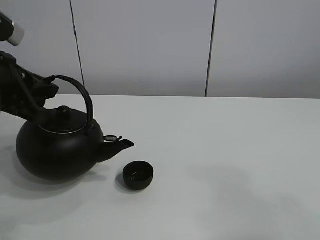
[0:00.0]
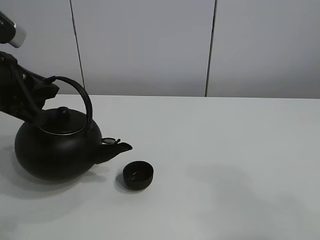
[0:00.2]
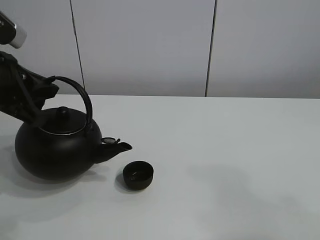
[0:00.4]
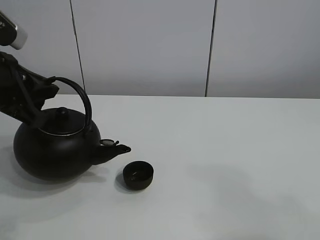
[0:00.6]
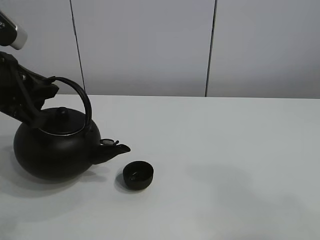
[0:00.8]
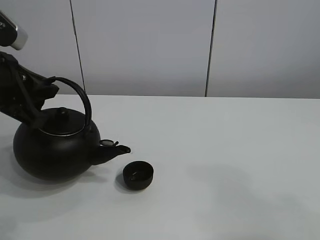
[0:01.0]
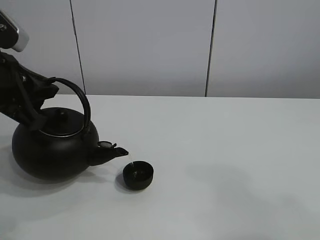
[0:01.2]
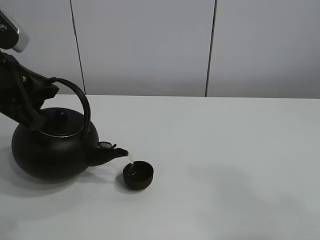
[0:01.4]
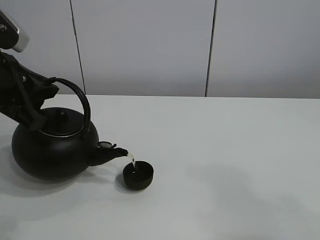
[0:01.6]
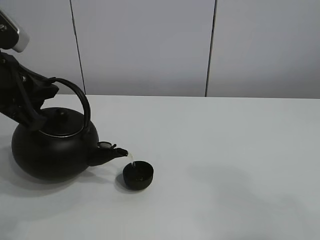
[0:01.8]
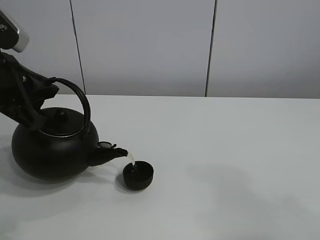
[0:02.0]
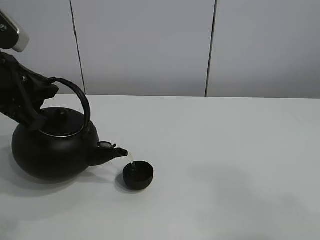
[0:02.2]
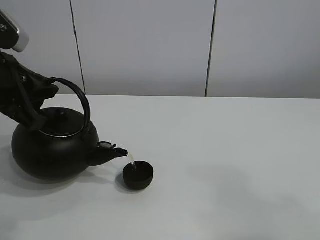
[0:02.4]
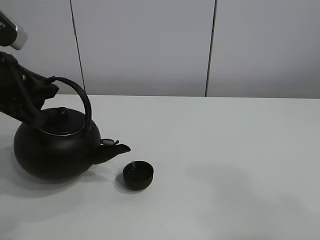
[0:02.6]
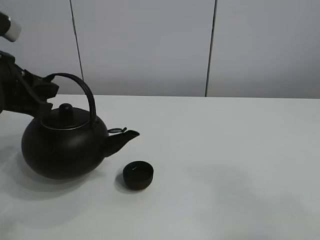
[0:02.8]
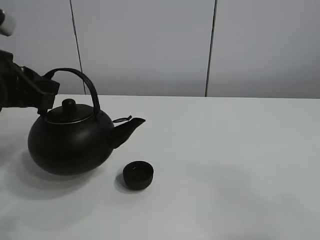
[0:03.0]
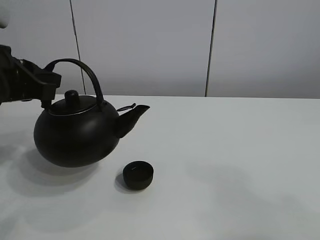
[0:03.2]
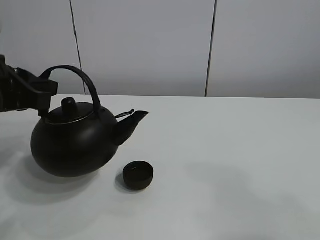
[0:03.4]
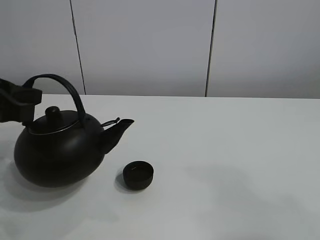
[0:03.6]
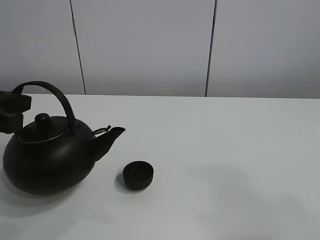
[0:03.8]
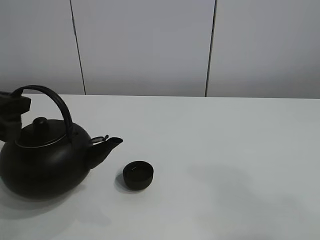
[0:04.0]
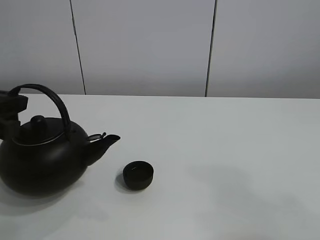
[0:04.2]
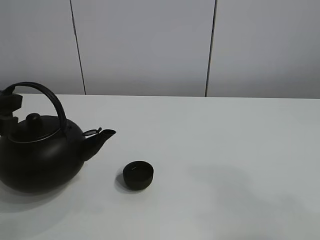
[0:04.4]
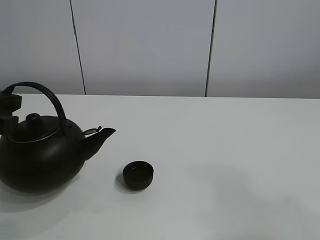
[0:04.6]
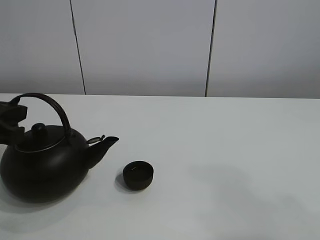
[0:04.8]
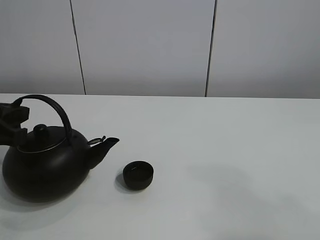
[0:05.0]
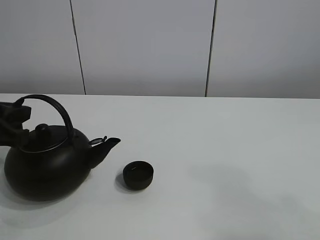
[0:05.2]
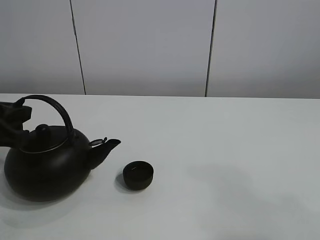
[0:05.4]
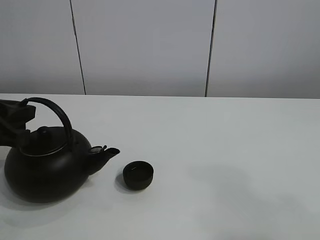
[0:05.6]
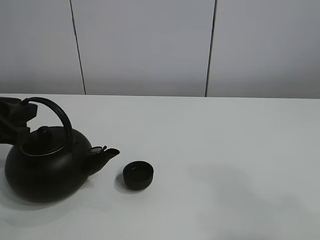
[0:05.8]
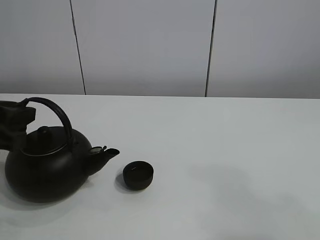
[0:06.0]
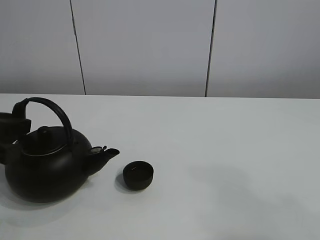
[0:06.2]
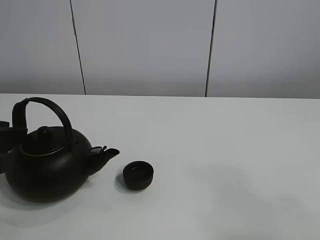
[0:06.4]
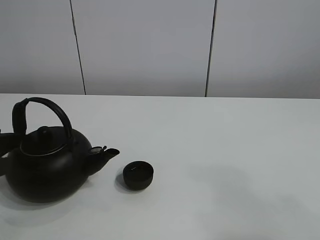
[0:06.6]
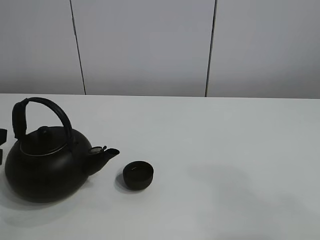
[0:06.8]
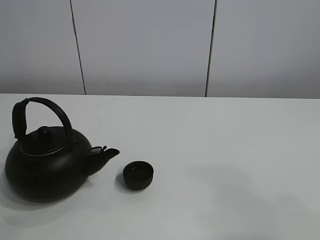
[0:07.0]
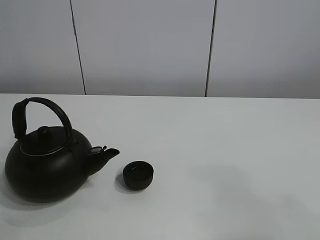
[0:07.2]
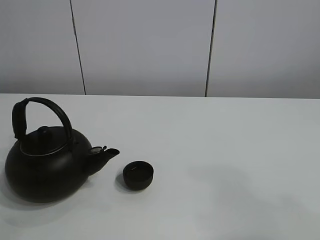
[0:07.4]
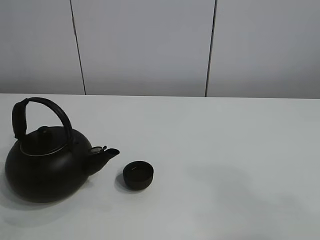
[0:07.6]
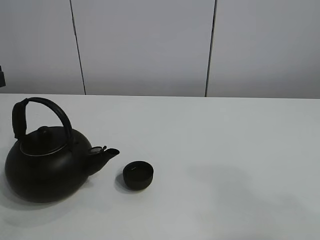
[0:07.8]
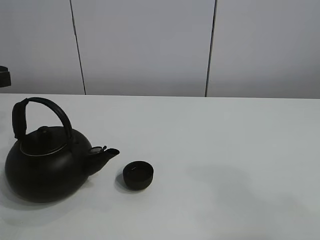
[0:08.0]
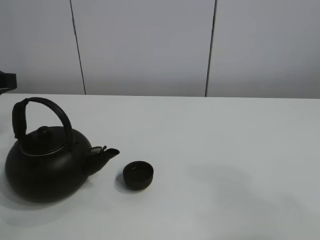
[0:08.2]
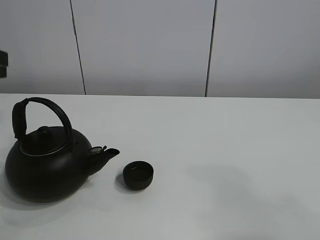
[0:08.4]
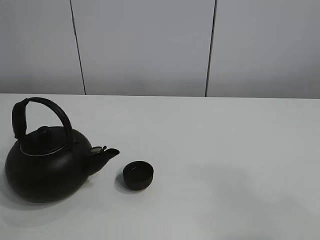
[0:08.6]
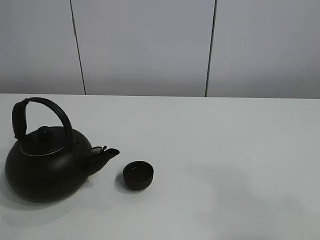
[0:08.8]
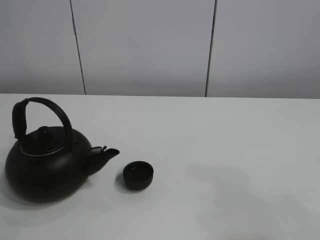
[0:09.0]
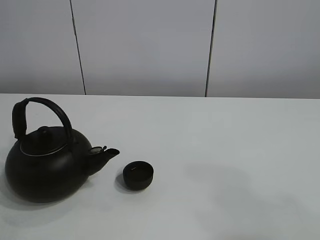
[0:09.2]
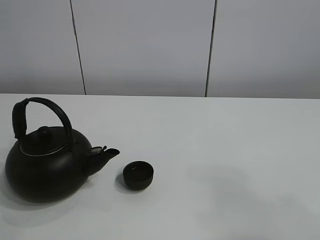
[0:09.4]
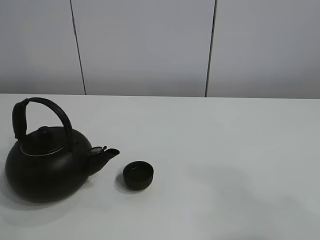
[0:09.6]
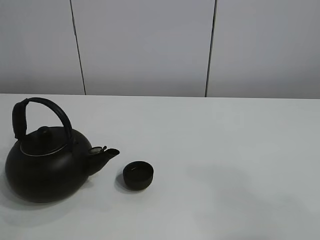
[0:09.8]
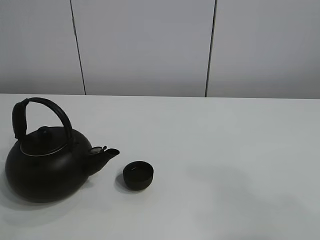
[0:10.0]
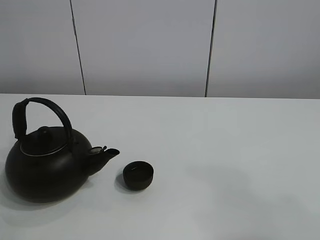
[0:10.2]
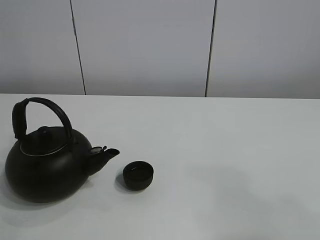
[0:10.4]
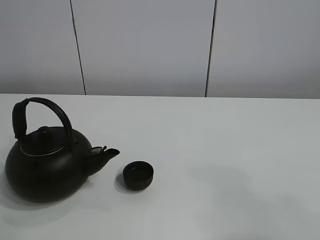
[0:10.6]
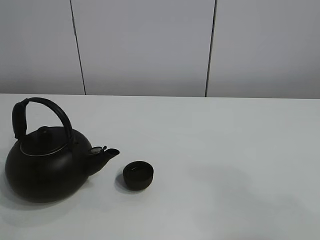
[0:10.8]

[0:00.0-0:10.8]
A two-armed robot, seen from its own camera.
Task of the whole recording: pour tea into the teacup.
Step, 0:00.0 to 0:02.6: Pour tea into the teacup with the left gripper.
0:00.0 to 0:01.6: The grippers stay close to where they were, moving slightly.
0:03.0 to 0:04.6: The left gripper moves about 5 cm.
0:04.6 to 0:06.2: The left gripper opens.
0:06.2 to 0:07.8: The left gripper ends up approximately 10 cm from where it was.

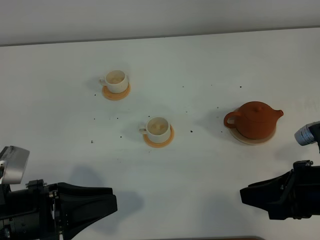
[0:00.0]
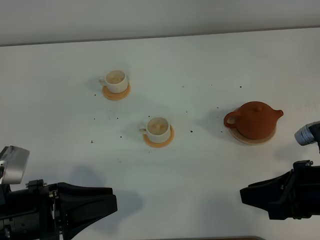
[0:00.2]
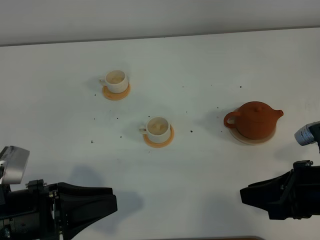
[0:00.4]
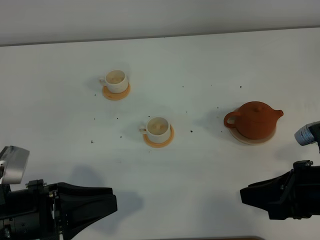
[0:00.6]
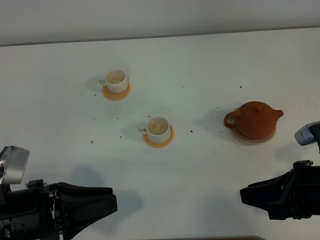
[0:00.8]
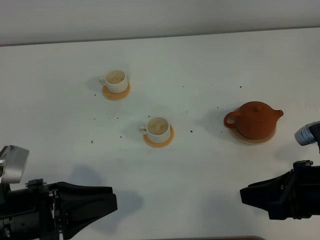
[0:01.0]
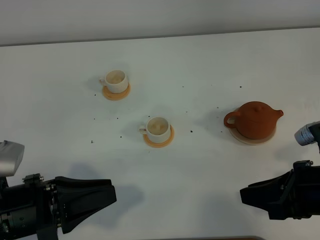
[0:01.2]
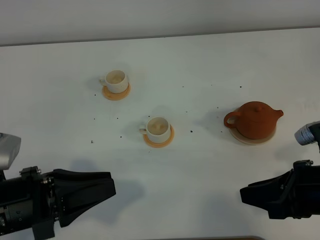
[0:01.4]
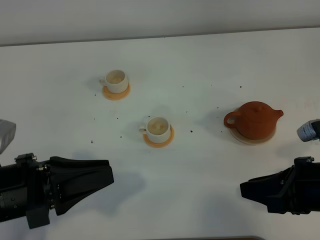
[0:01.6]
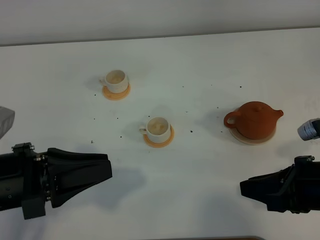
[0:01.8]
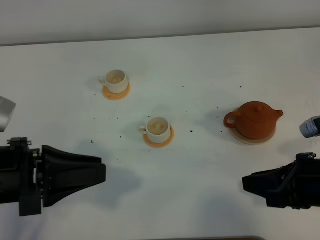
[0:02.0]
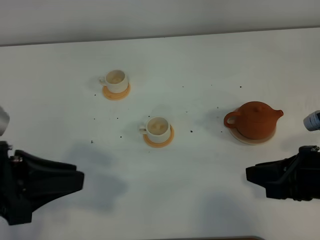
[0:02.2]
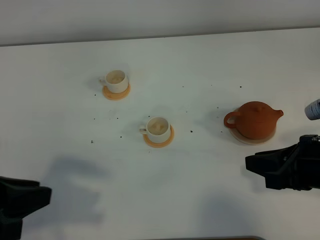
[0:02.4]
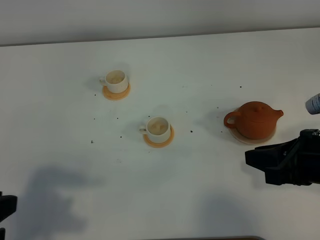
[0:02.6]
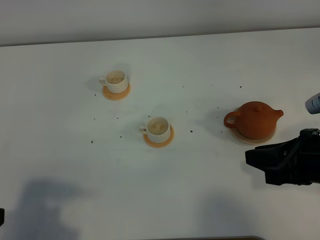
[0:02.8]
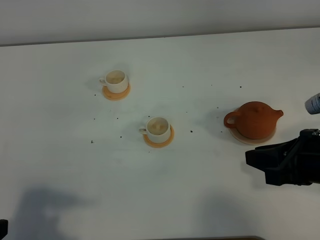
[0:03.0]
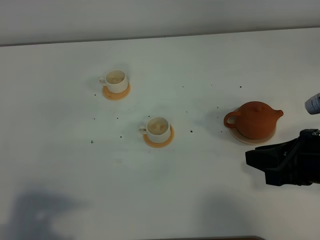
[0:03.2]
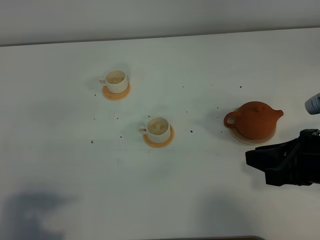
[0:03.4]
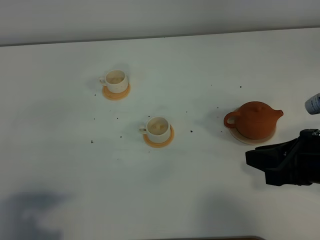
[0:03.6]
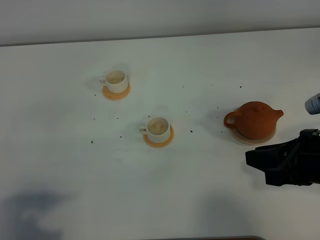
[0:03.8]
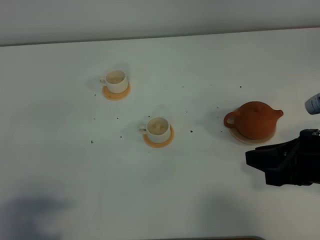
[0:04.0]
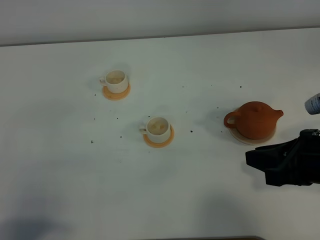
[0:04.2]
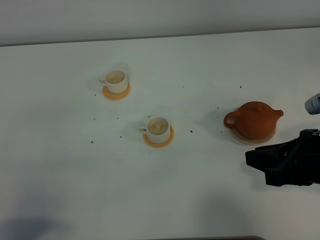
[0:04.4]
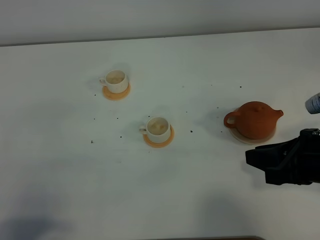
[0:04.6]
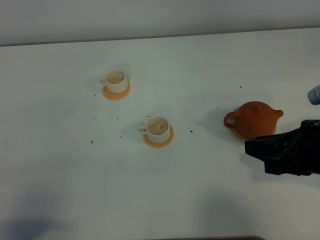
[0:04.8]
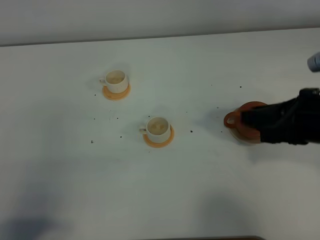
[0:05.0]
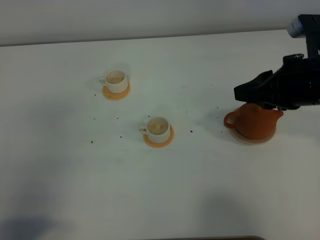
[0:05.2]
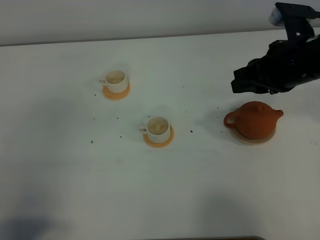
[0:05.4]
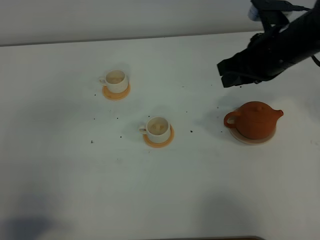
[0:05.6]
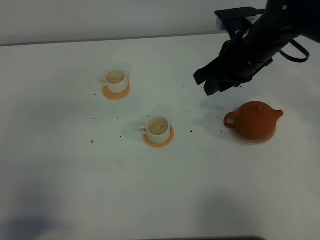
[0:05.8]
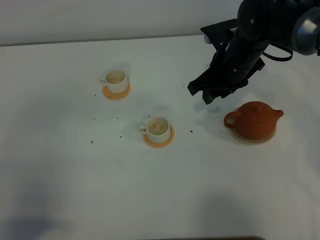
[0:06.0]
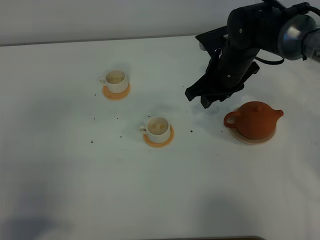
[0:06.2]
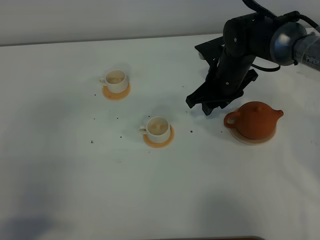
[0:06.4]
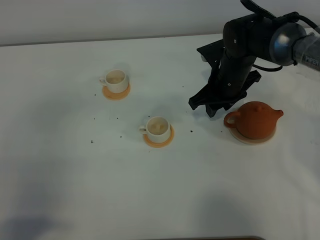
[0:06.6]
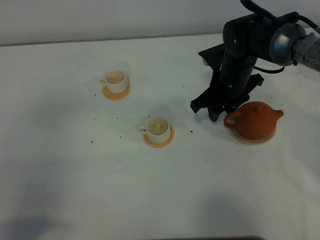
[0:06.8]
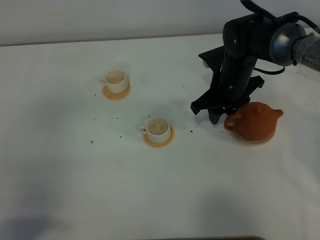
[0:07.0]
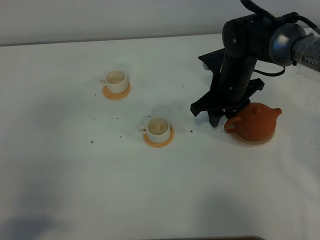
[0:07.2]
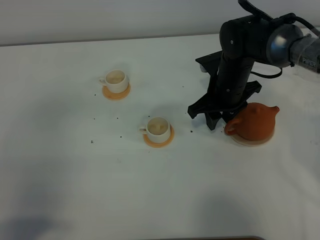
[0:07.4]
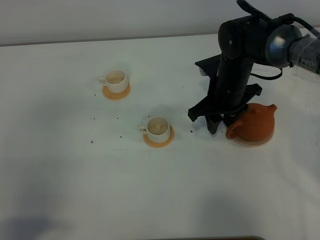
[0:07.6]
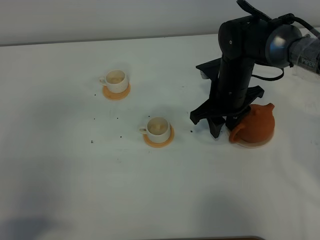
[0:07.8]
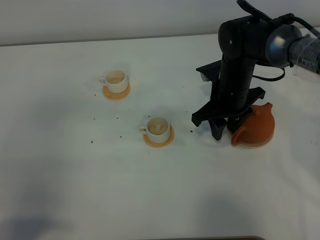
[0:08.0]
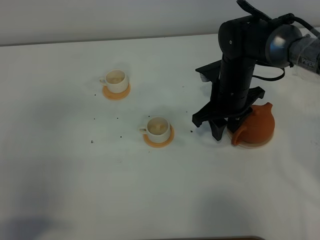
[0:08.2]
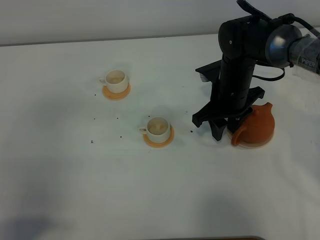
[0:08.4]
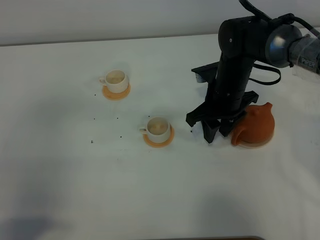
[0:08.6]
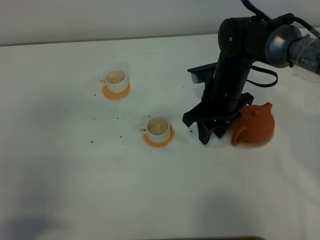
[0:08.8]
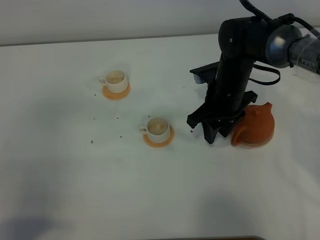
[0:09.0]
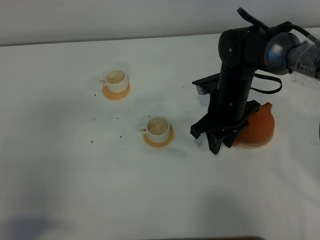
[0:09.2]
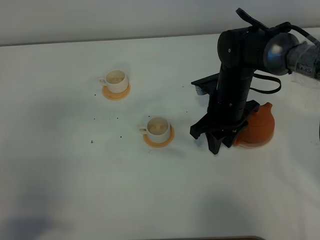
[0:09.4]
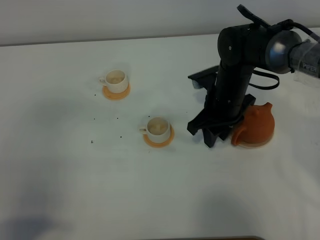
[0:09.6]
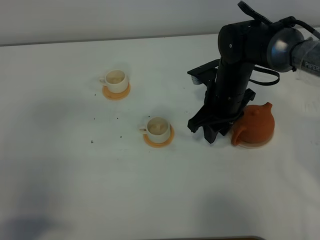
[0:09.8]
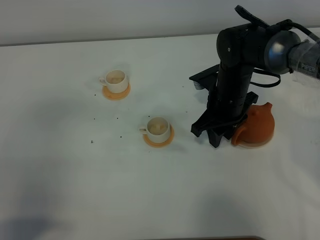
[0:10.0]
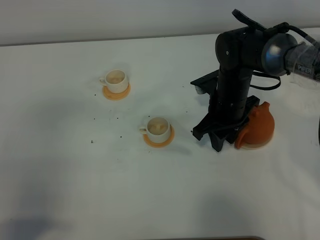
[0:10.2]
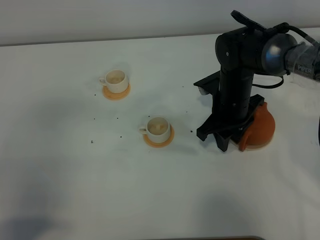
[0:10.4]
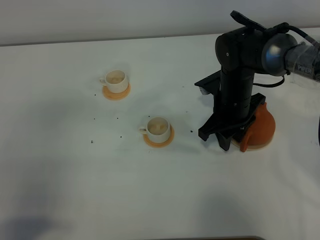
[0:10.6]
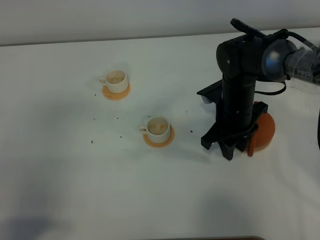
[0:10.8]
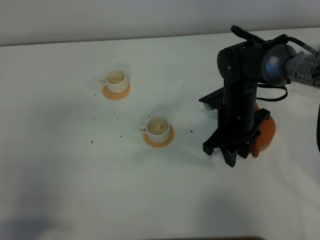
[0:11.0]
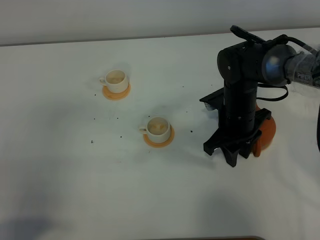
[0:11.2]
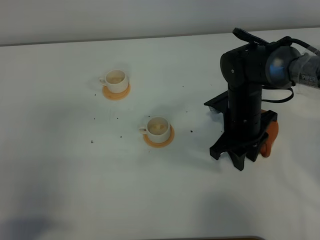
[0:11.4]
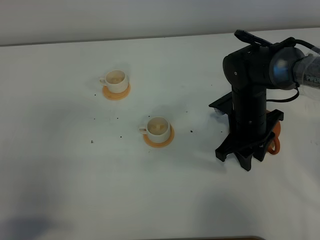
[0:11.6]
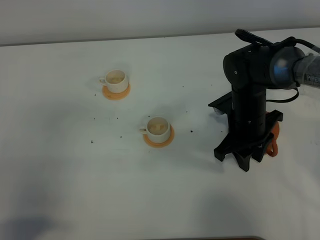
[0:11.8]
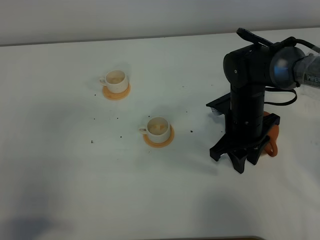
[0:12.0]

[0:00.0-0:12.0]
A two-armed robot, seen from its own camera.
Task of the whole recording: grasp the brown teapot and pour the tea into the two white teacups one by one, put the brown teapot back in its original place.
0:00.0 to 0:01.6: The grippers stay close to where they were, moving slightly.
0:01.6 to 0:03.0: The left gripper is displaced backward and to the left by roughly 10 cm.
0:04.4 to 0:06.0: The right gripper heads forward and to the left, covering about 25 cm, and opens.
0:06.0 to 0:07.6: The grippers make only small movements.
0:07.6 to 0:10.4: The grippers stay close to where they were, moving slightly.
0:10.4 to 0:12.0: The grippers make only small movements.
